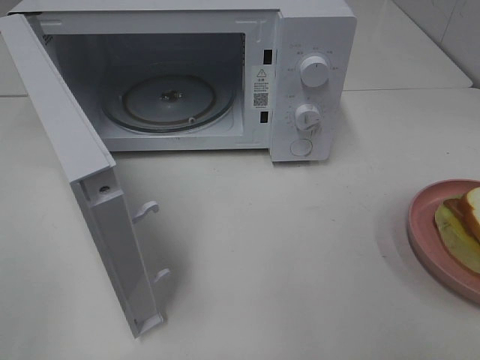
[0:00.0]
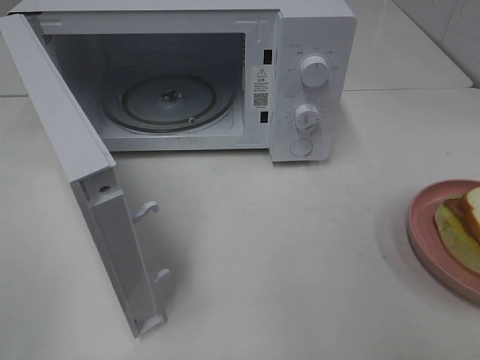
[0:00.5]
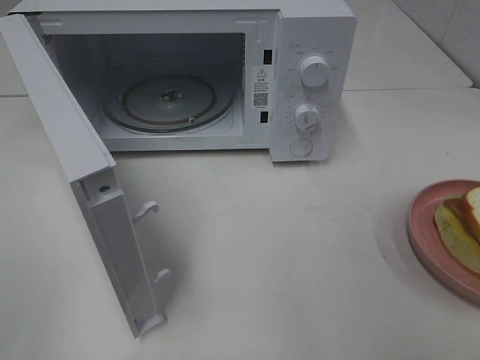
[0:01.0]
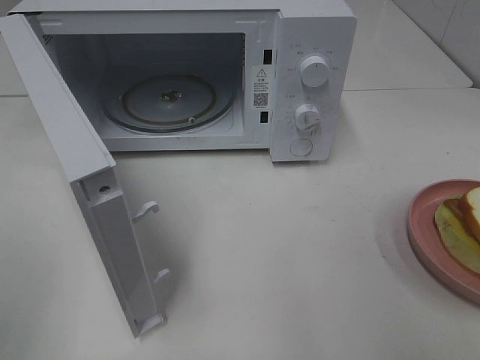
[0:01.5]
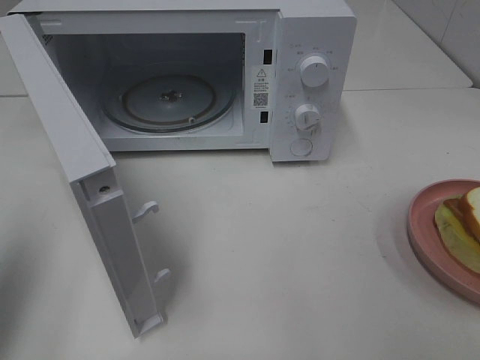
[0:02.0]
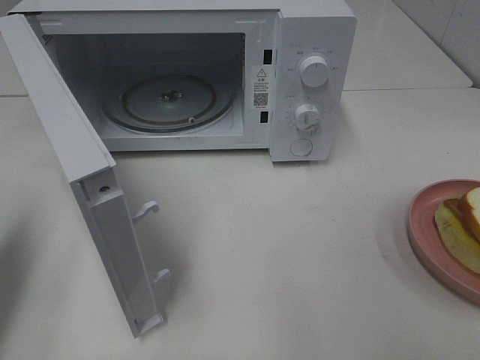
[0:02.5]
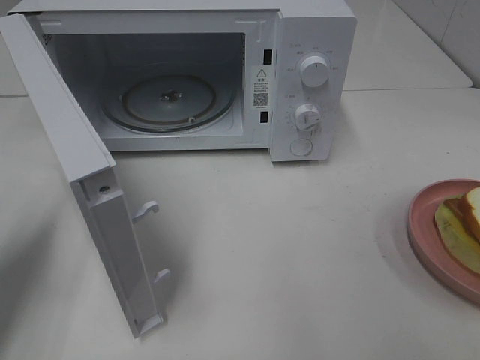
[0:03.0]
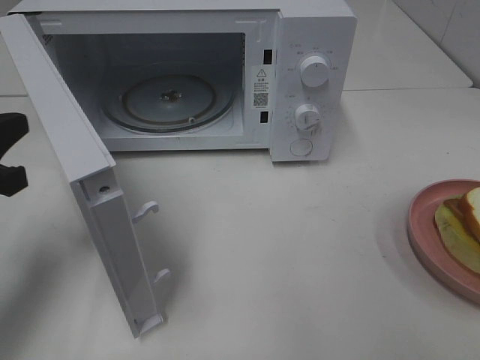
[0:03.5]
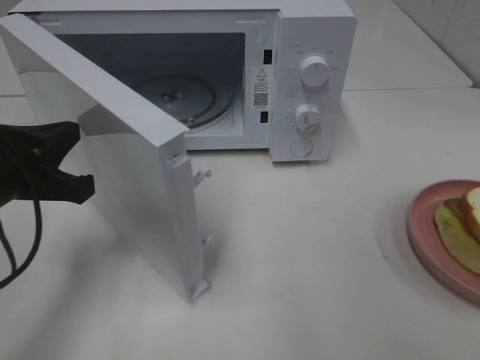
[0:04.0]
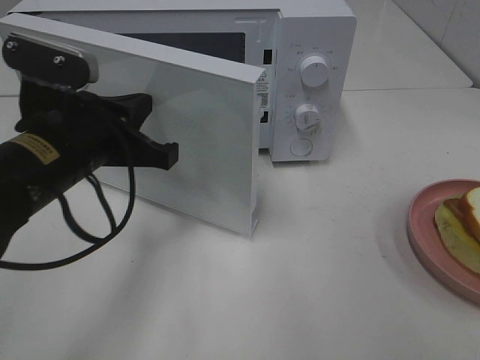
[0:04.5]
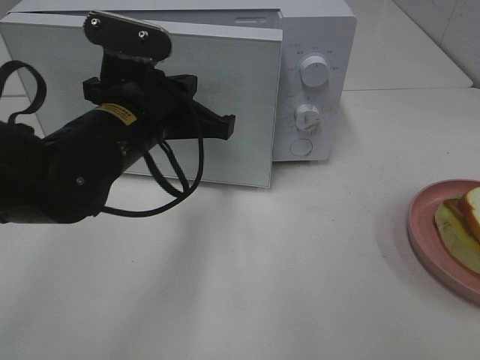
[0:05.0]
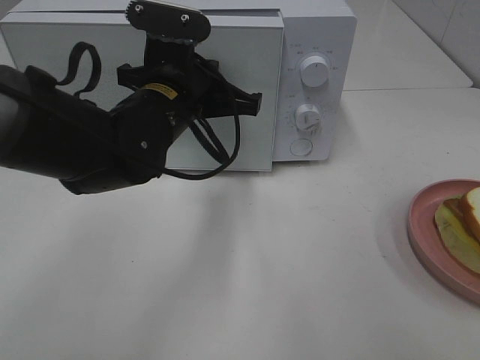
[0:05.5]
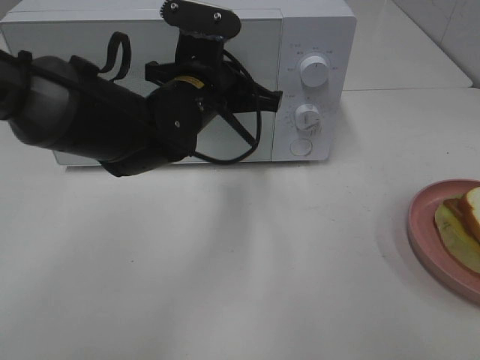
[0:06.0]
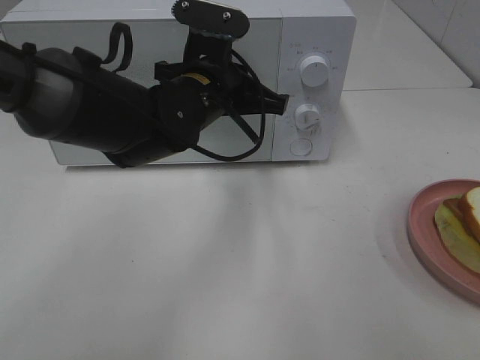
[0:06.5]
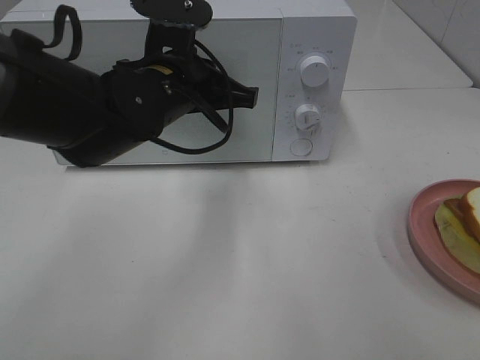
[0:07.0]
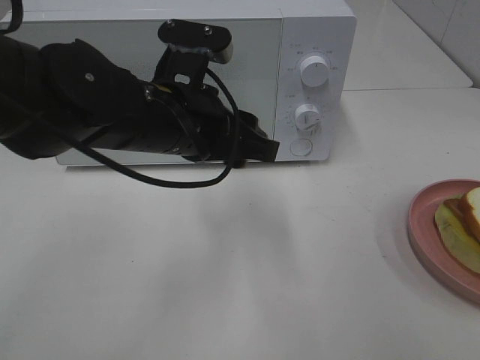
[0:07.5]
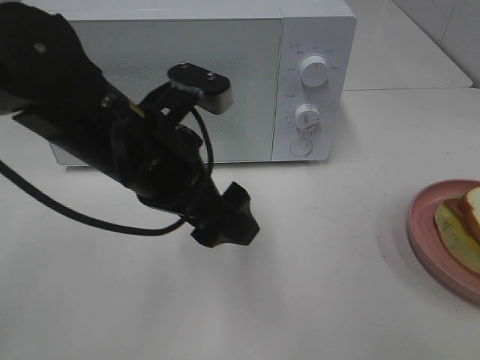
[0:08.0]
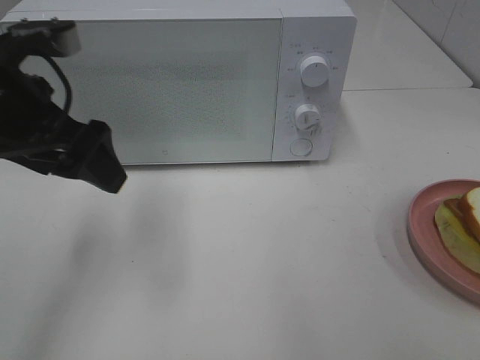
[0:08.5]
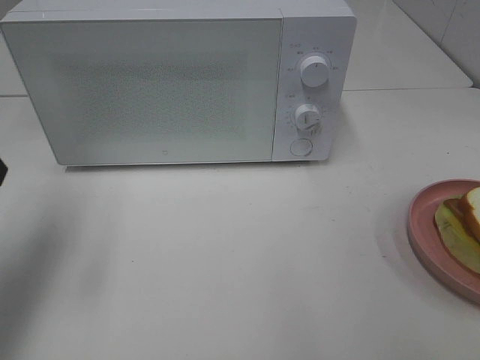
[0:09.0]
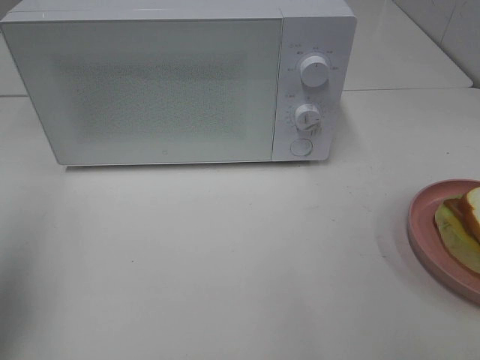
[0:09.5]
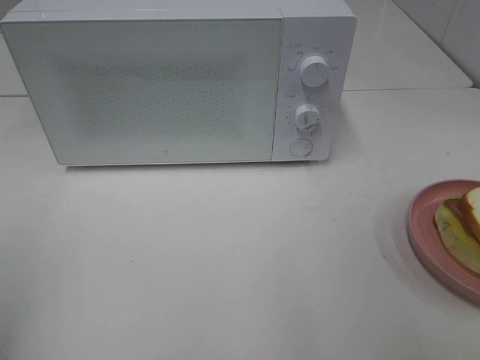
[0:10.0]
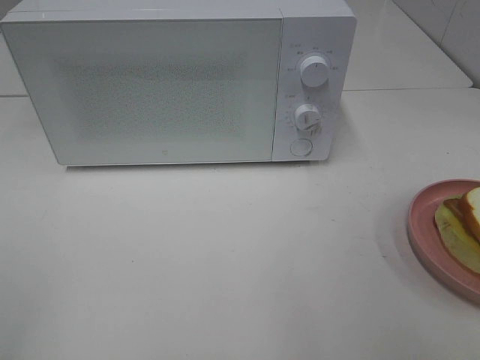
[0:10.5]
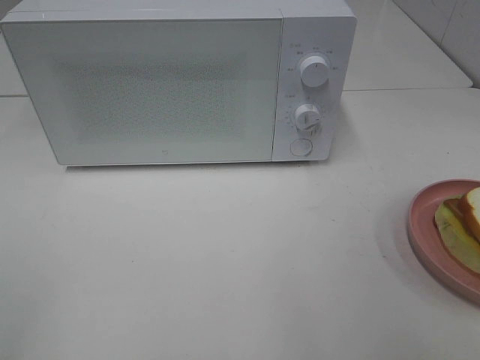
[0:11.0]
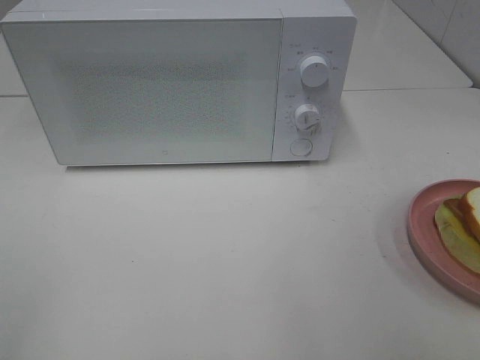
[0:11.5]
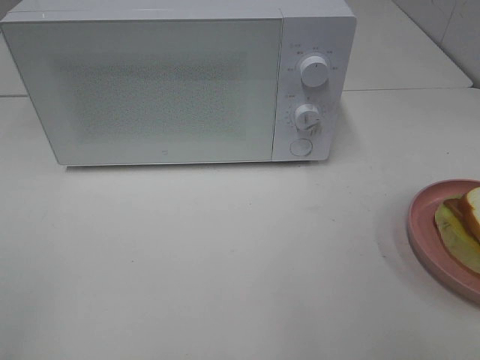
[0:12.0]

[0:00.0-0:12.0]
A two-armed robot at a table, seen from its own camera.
Task of the whole recording: Heat Sandwich.
Step, 0:00.0 to 0:07.0: Left hand: close the microwave door.
0:00.0 to 0:02.0: The left gripper is displaced forward by some 15 cm, and closes its fingers.
0:02.0 to 0:04.0: The left gripper heads downward, to the right and forward, covering roughly 20 cm.
0:04.0 to 0:06.0: The left gripper moves to the right and forward, some 20 cm.
0:06.0 to 0:08.0: The left gripper is displaced backward by some 10 cm, and opens.
0:08.0 to 0:10.0: The left gripper is displaced to the left and backward by about 30 cm.
